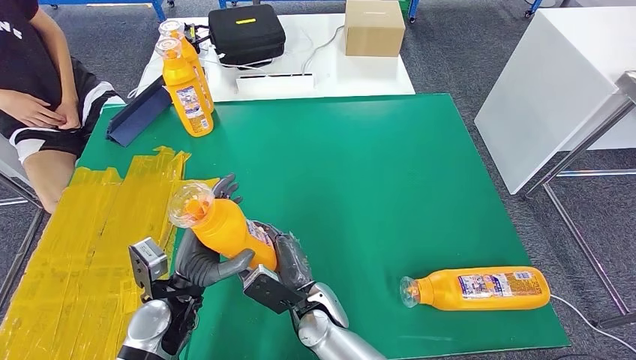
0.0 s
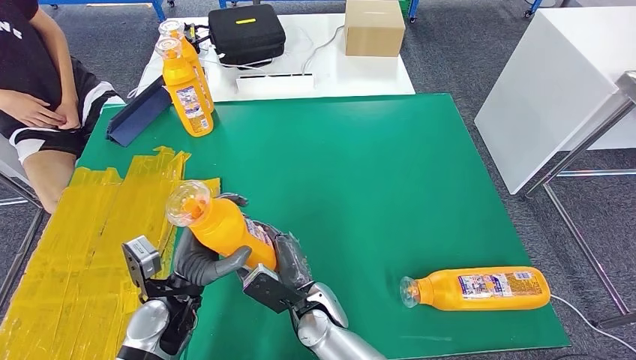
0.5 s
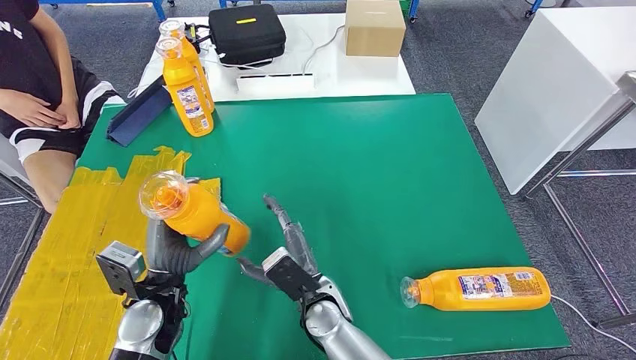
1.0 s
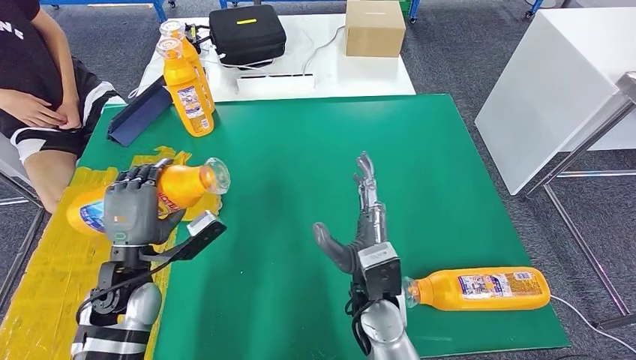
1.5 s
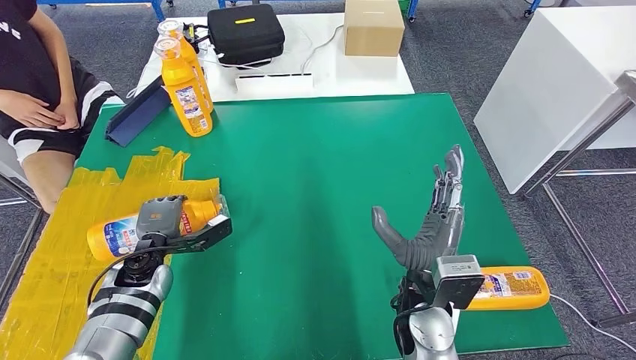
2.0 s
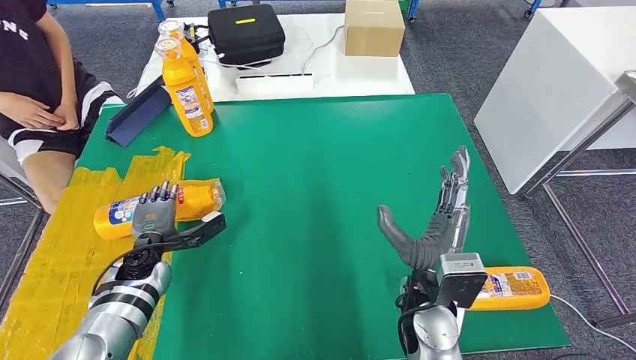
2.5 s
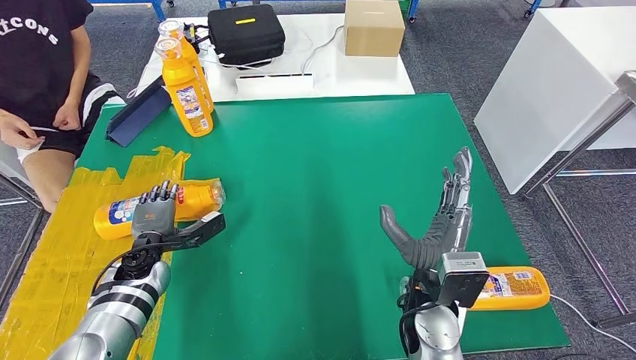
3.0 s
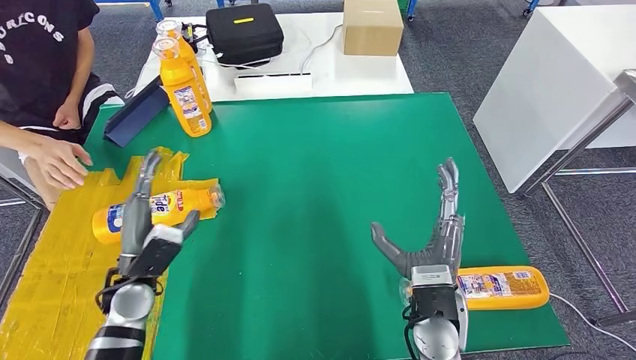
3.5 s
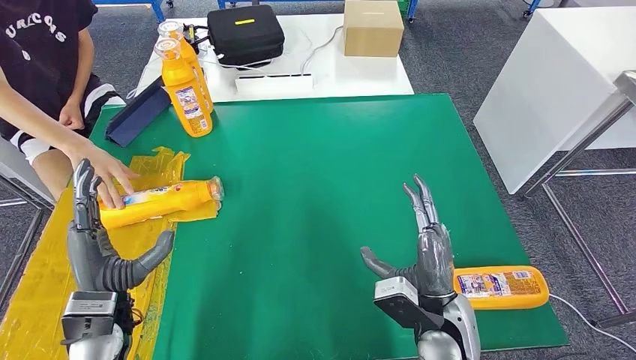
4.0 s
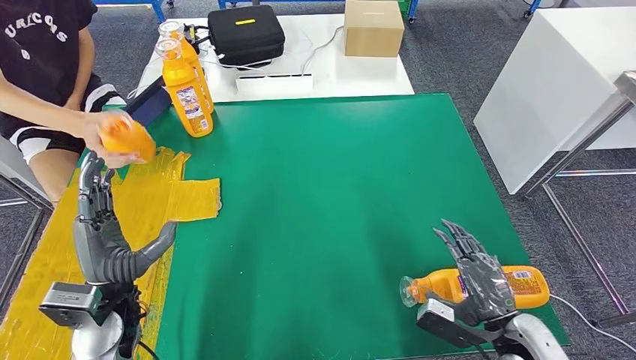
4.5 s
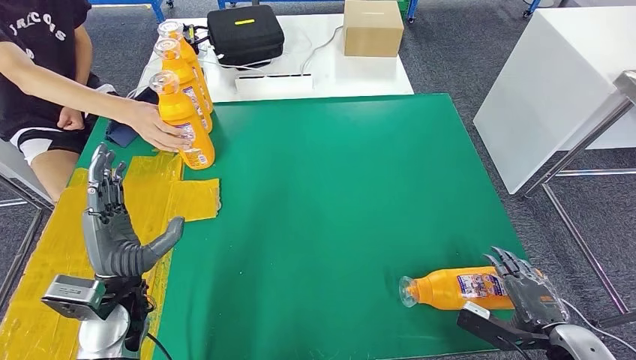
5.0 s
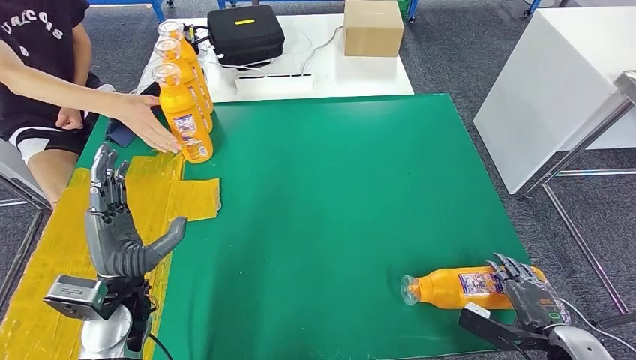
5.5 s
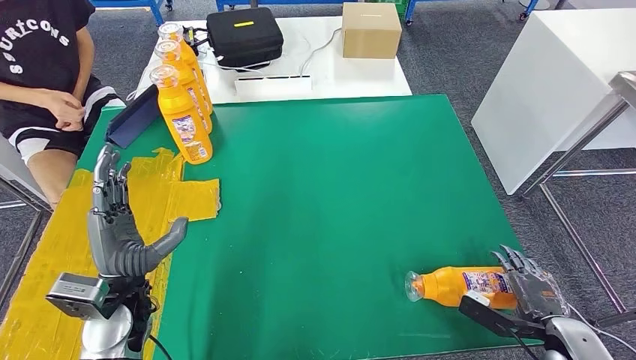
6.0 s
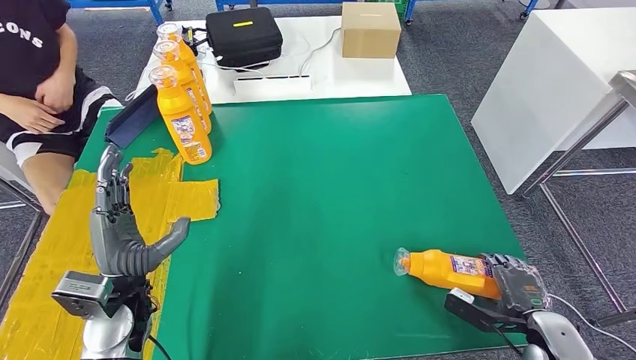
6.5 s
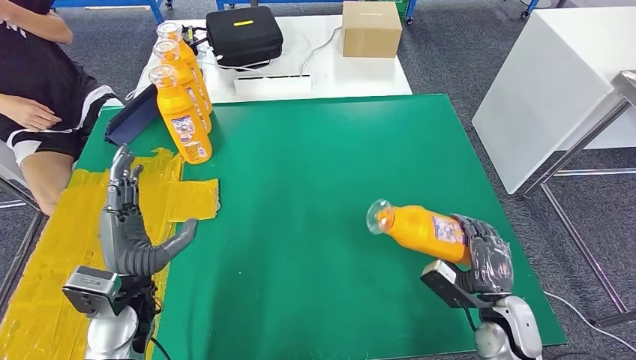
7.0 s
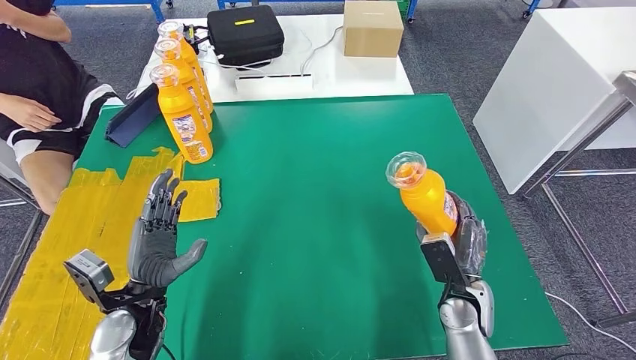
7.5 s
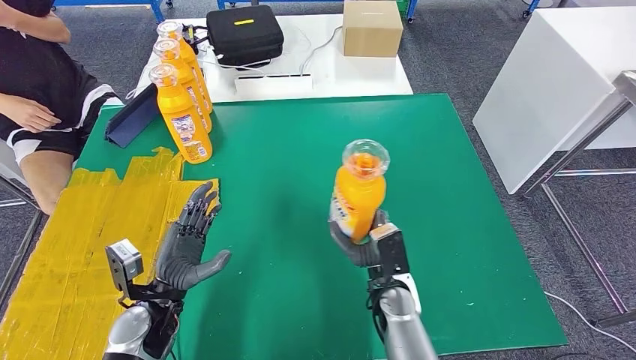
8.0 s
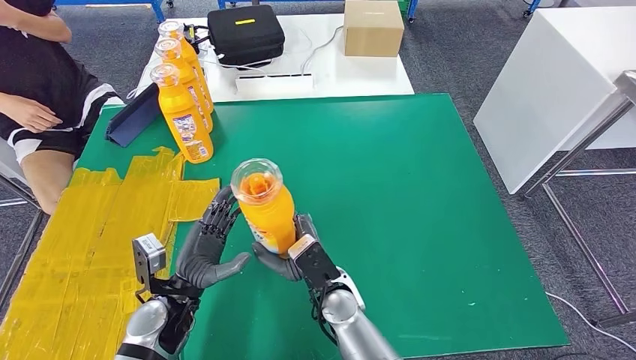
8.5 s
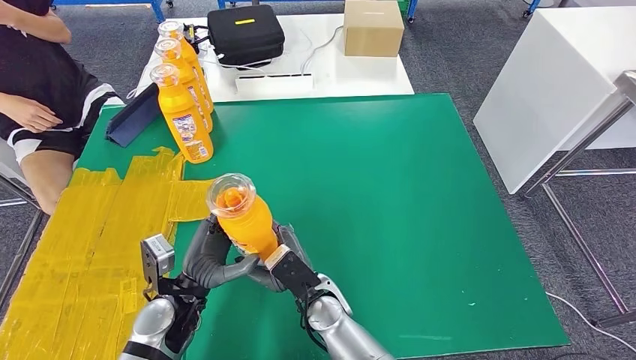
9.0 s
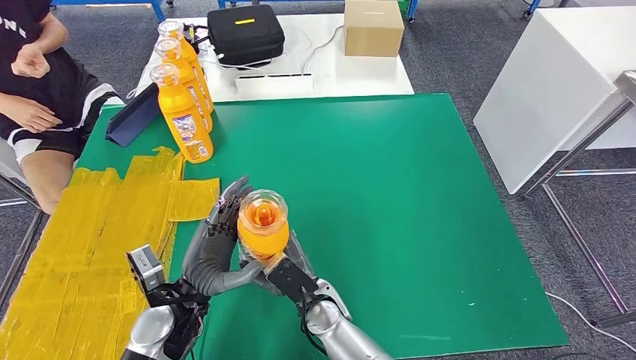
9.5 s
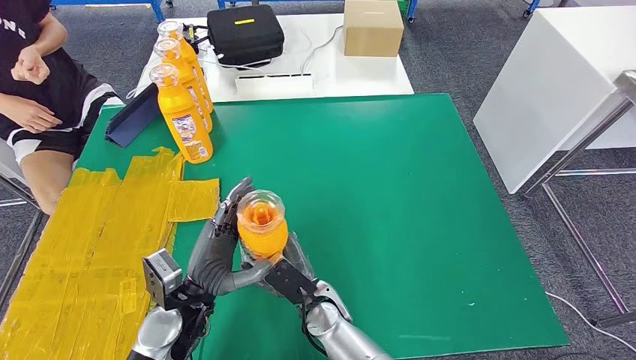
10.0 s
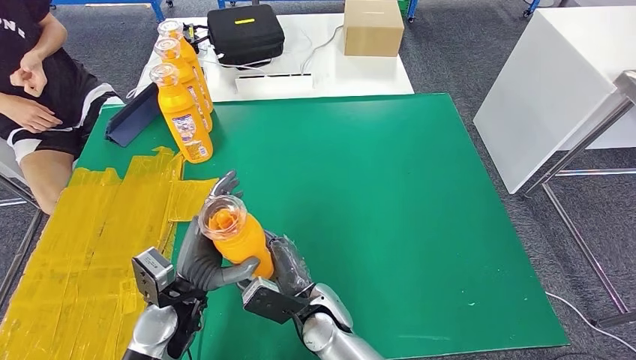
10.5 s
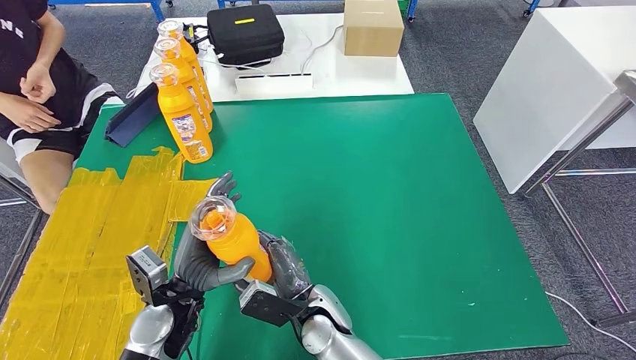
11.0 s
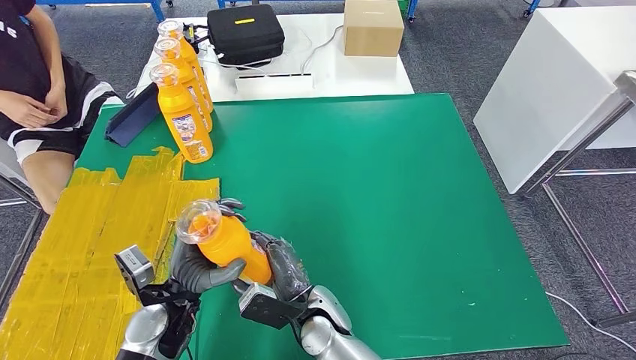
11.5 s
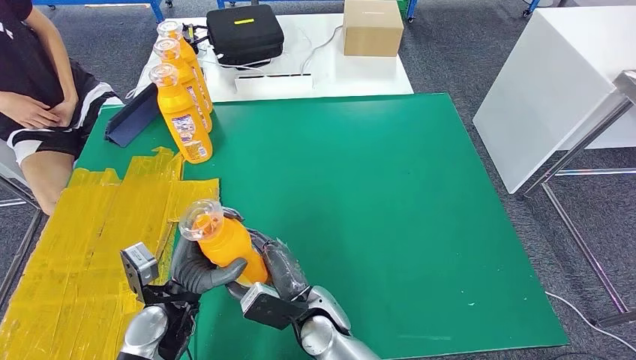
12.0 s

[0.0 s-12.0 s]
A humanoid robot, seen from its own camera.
Step, 0.5 to 4.0 s: Flip the fast-moving consumer goods bottle to the front side.
Step, 5.0 to 8.0 s: Pick up the fast-moving consumer goods bottle from the table.
0.0 to 2.0 s: The left hand moves forward and to the left, about 10 cm. The right hand heads to the right and upward, covering some 20 cm.
2.0 to 4.0 s: The left hand heads backward and upward, covering roughly 15 cm; the right hand shifts by approximately 5 cm.
8.0 to 10.0 s: The right hand travels to the left by some 15 cm, while the left hand is displaced to the right by some 5 cm.
10.0 to 12.0 s: The hands move only a little.

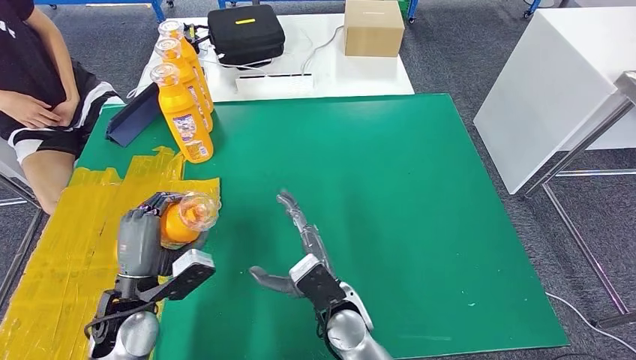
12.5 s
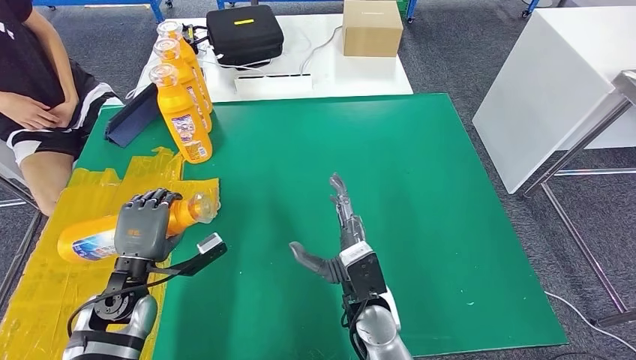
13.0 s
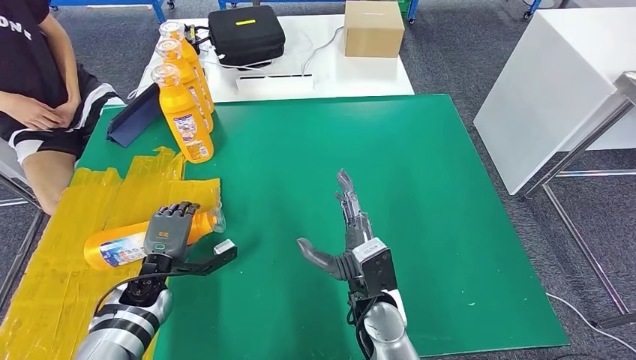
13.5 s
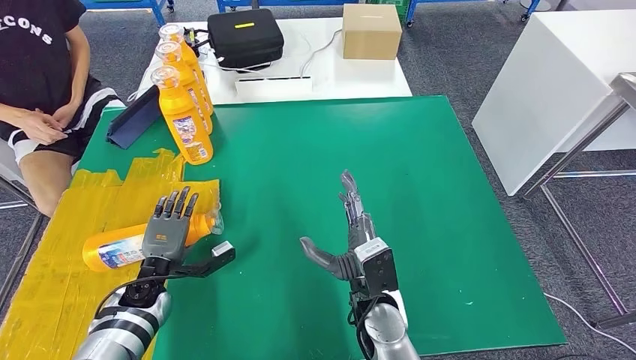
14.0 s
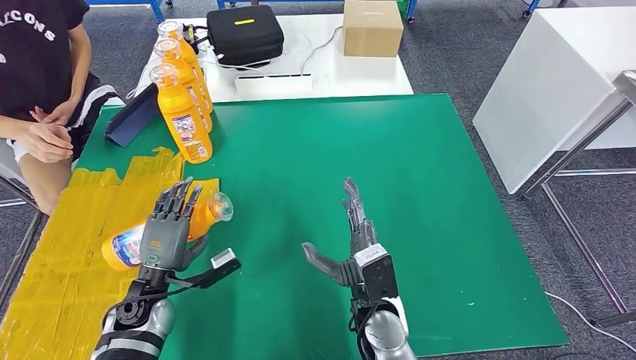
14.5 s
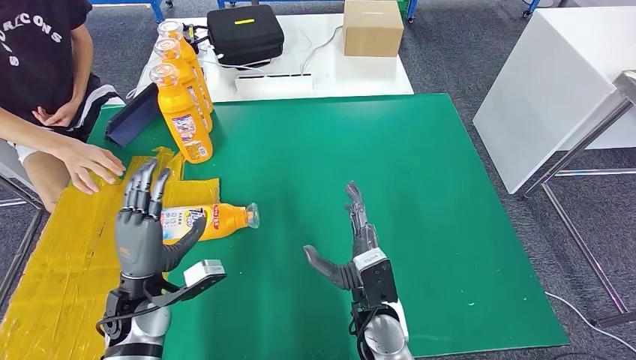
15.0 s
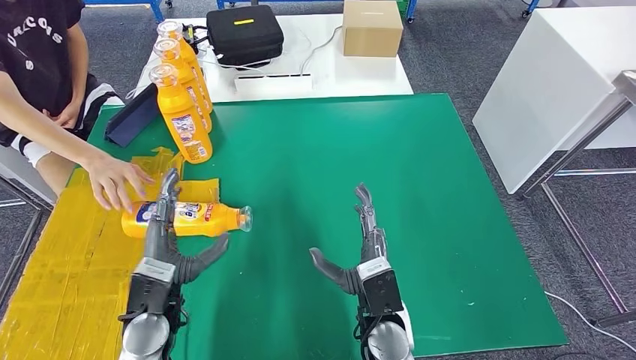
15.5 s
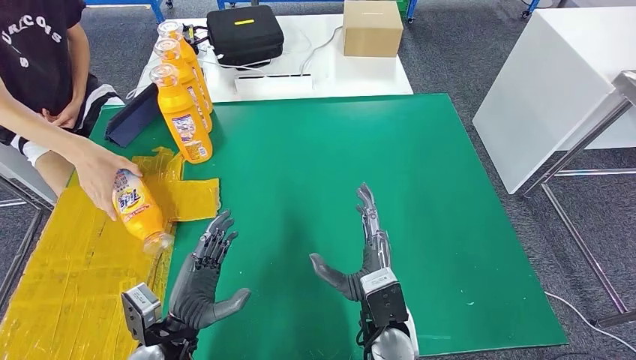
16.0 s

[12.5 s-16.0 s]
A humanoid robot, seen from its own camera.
Step, 12.5 to 16.0 s: Flip the fast-moving consumer goods bottle to the front side.
12.5 to 14.5 s: The left hand is displaced downward by approximately 5 cm. Meanwhile the right hand shifts about 5 cm to the right.
14.5 to 16.0 s: The left hand heads backward and to the right, covering roughly 10 cm.
